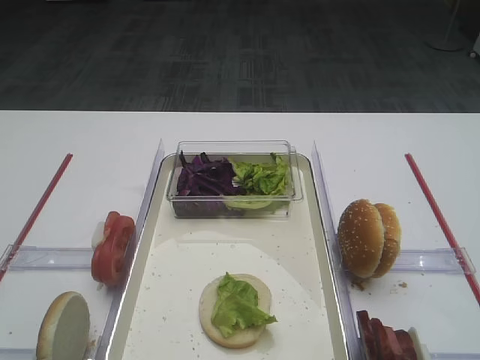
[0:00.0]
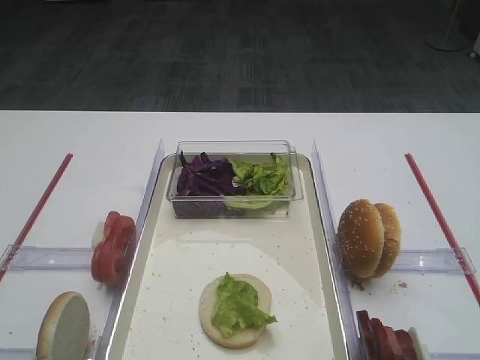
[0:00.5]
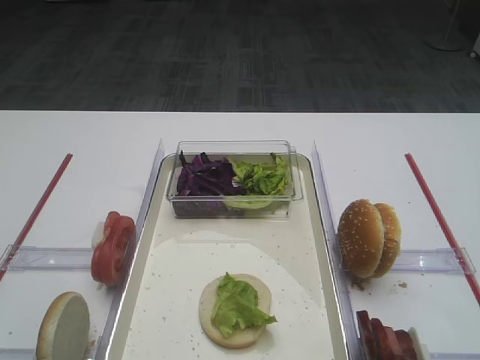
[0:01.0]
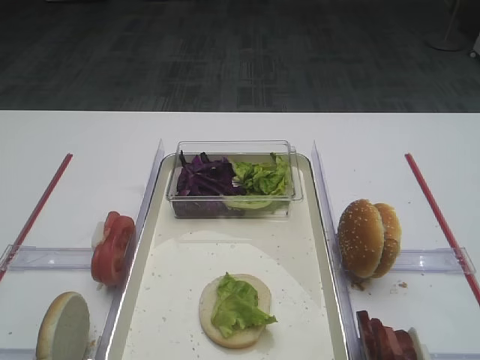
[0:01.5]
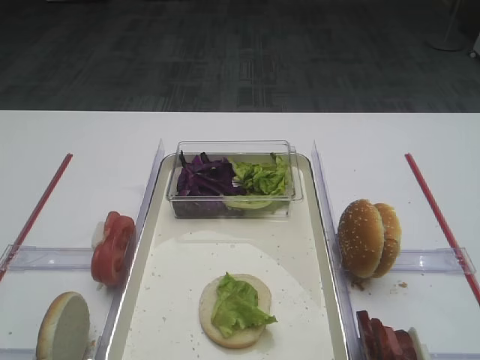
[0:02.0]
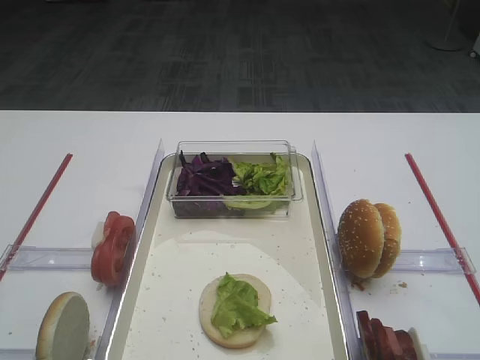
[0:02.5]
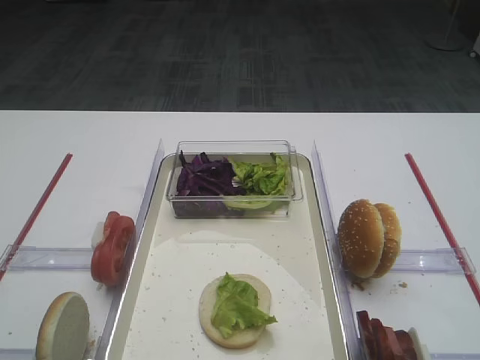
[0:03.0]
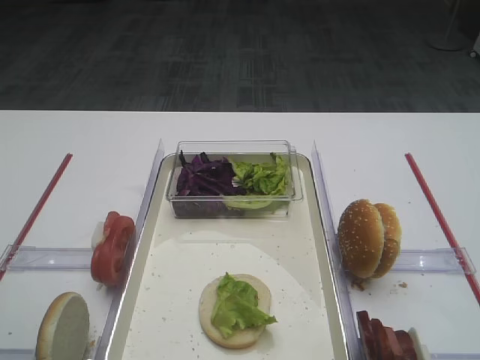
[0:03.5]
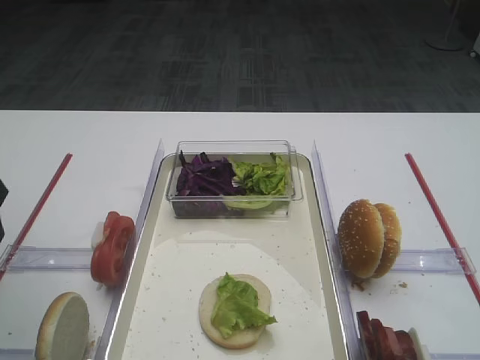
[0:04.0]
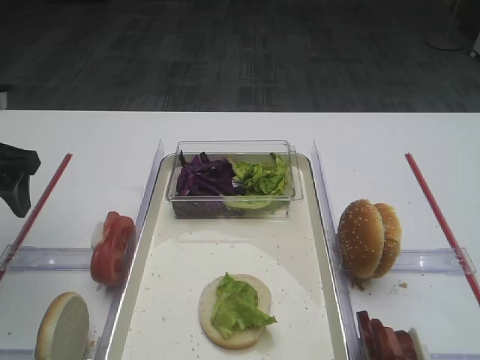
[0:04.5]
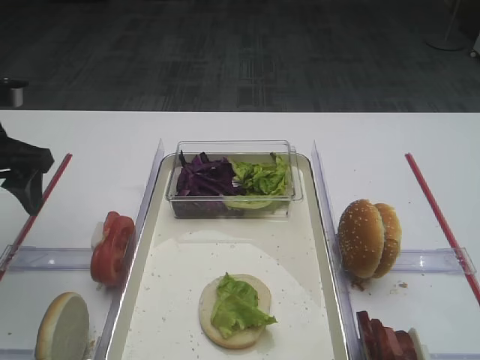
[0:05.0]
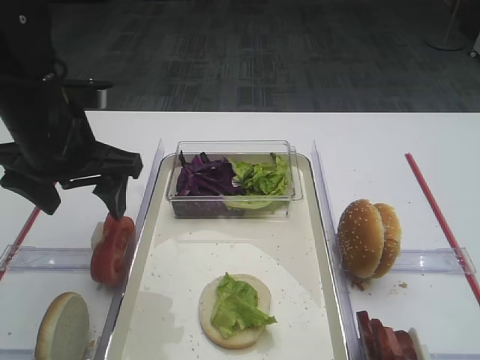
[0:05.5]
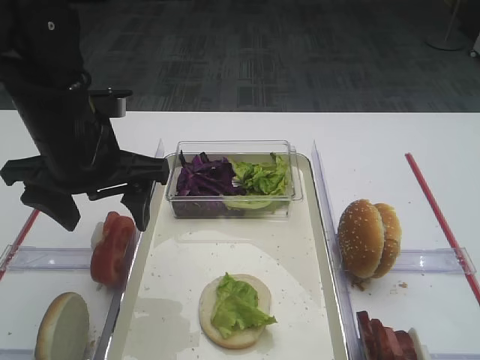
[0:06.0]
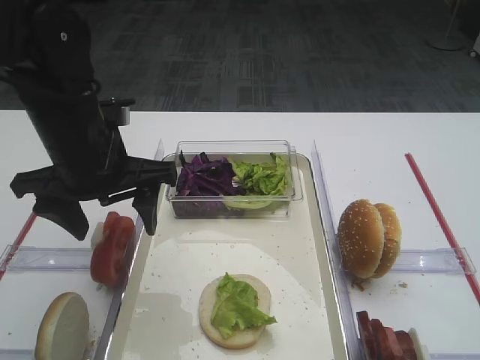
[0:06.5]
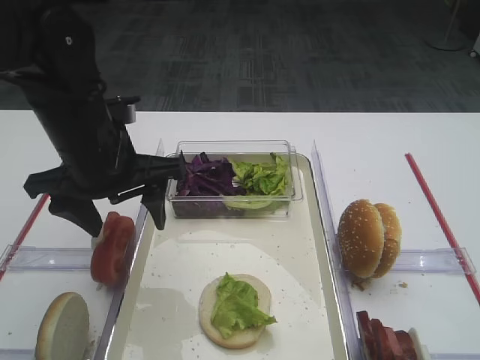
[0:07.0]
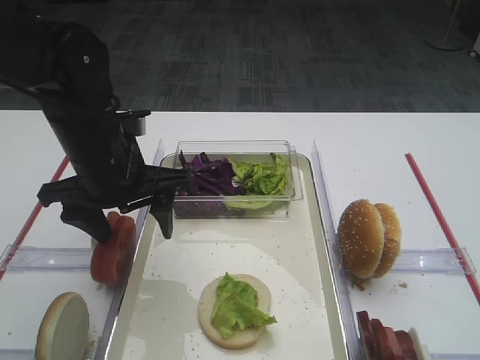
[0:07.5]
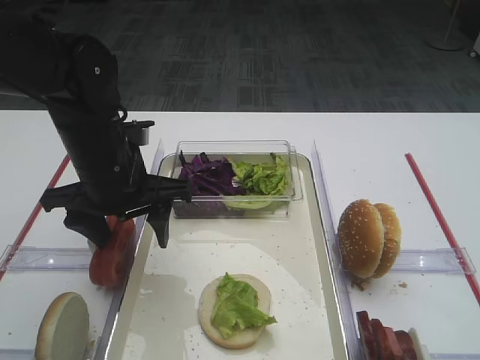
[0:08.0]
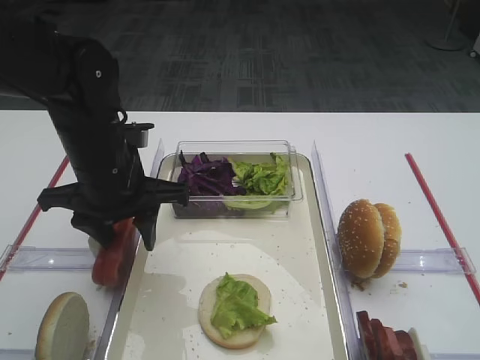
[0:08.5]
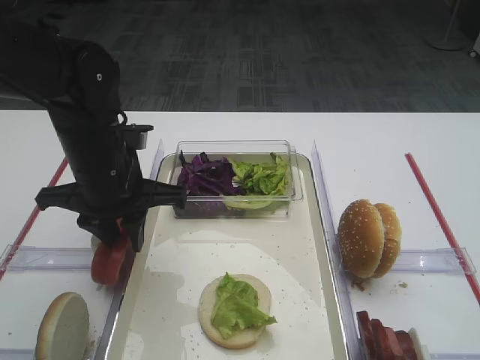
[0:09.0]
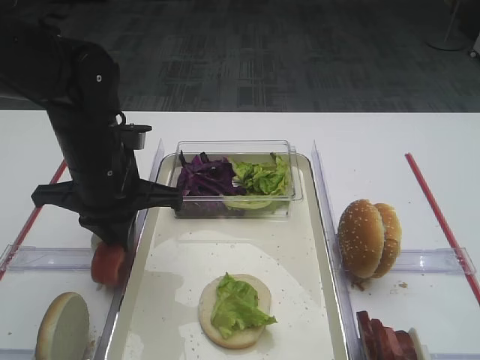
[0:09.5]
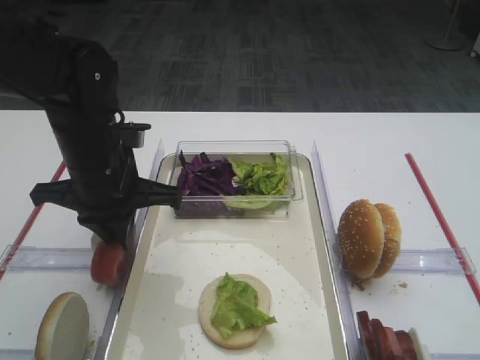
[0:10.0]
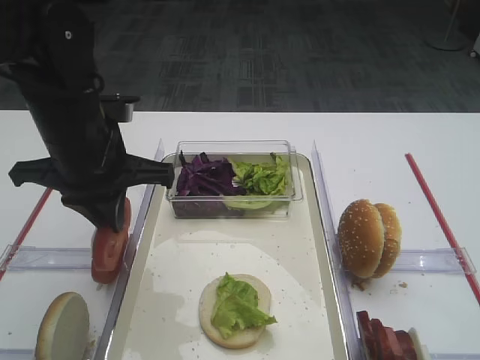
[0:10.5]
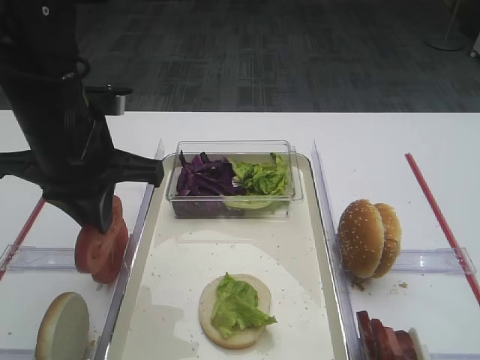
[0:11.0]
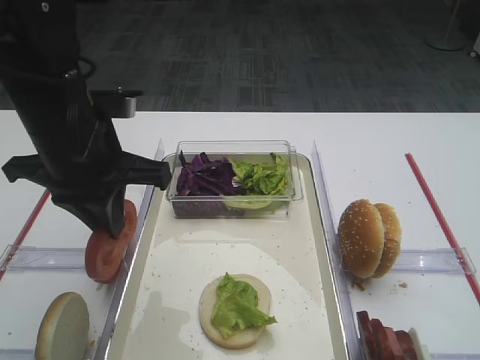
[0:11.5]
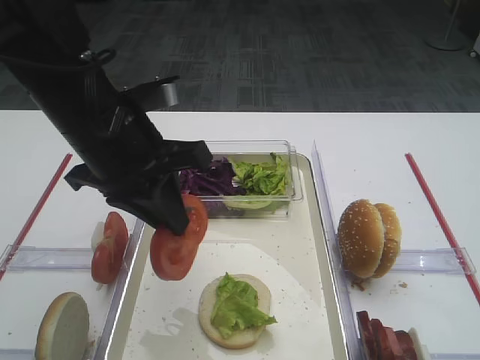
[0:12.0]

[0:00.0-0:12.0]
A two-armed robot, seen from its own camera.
Step, 0:00.0 to 0:11.0: Pick up the tomato slice with the left gripper.
0:02.0 to 0:04.0: The left gripper moves forward, roughly 25 cm.
0:04.0 to 0:06.0: The left gripper moves to the right, approximately 15 cm.
0:06.0 to 0:08.0: The left gripper moves some 5 cm.
0:08.0 to 0:10.0: The left gripper closes up.
0:10.0 to 0:12.0: The left gripper goes some 5 cm upward.

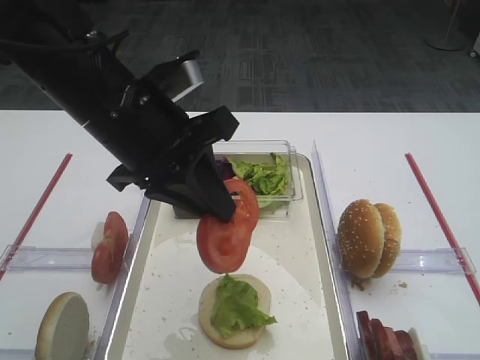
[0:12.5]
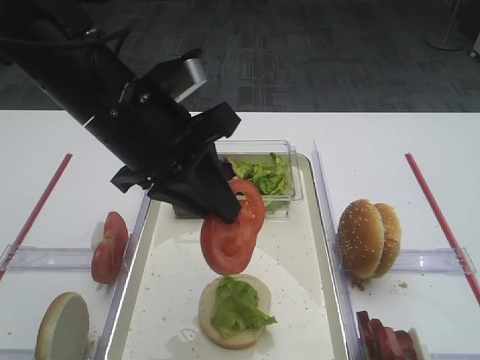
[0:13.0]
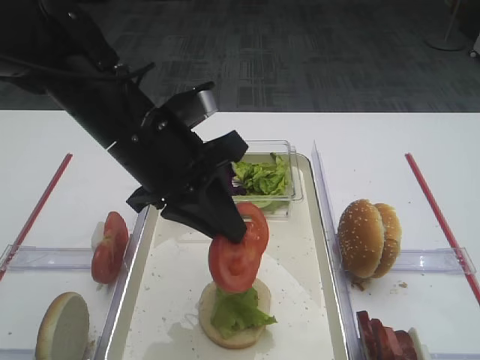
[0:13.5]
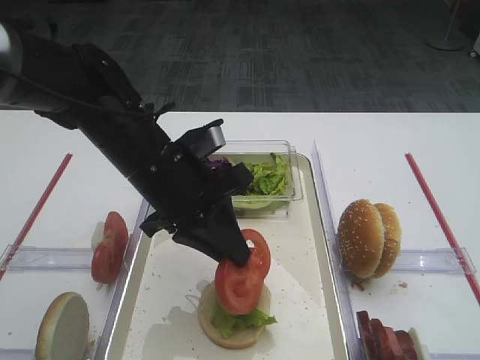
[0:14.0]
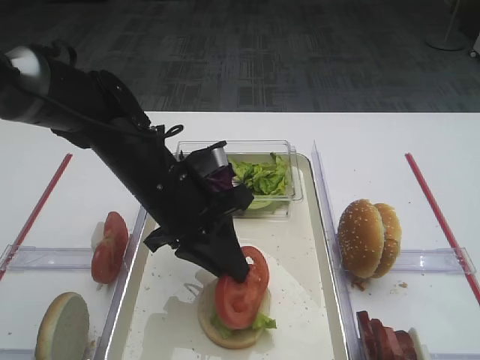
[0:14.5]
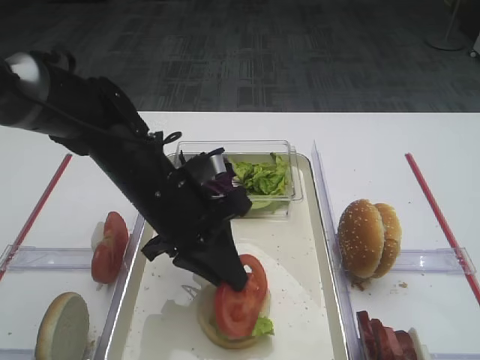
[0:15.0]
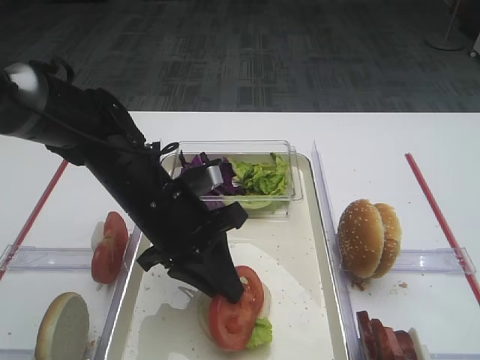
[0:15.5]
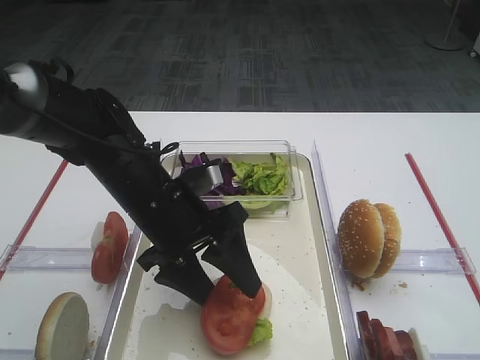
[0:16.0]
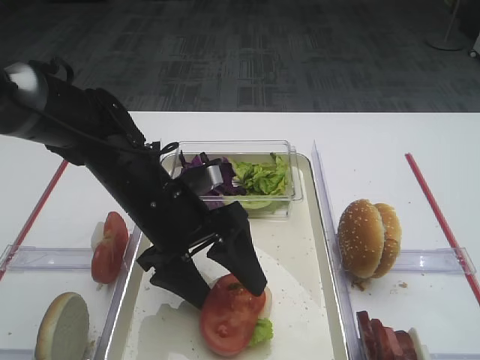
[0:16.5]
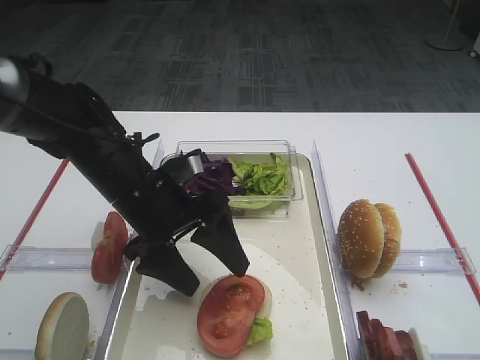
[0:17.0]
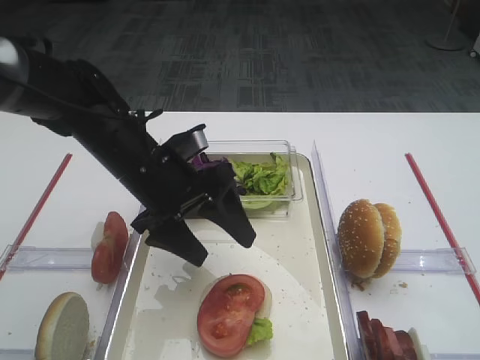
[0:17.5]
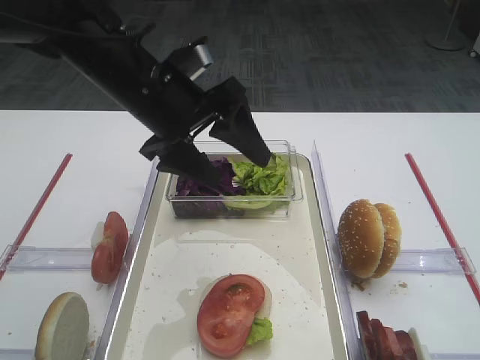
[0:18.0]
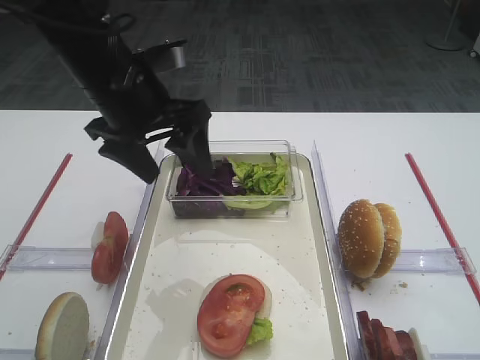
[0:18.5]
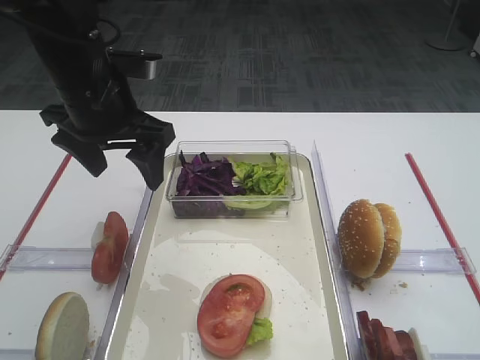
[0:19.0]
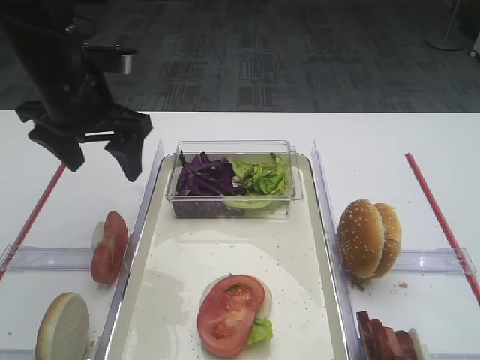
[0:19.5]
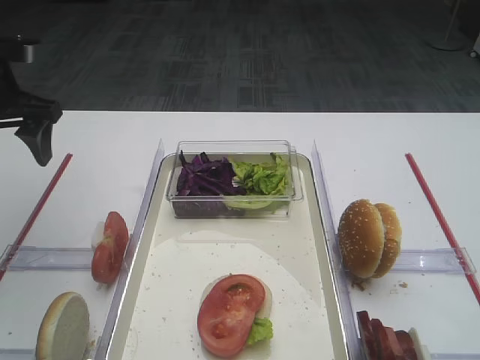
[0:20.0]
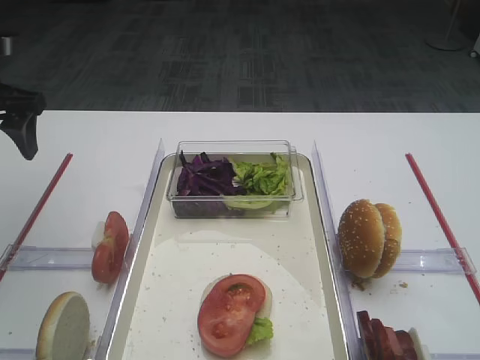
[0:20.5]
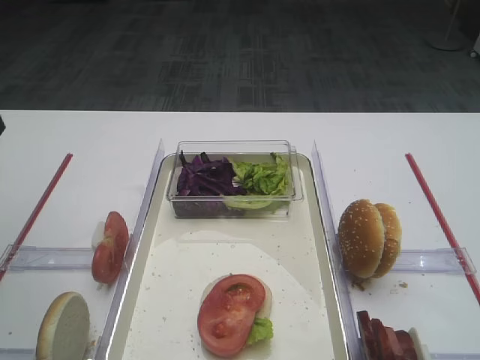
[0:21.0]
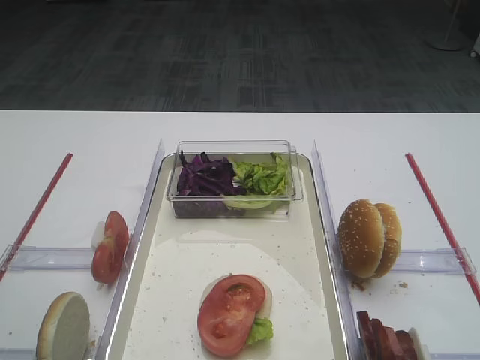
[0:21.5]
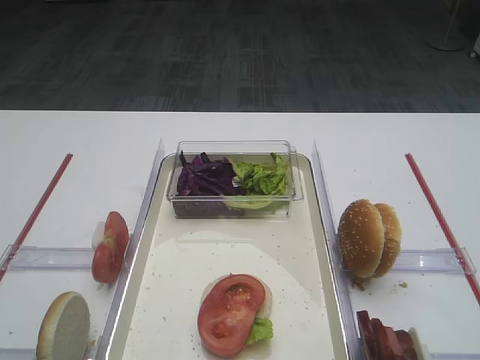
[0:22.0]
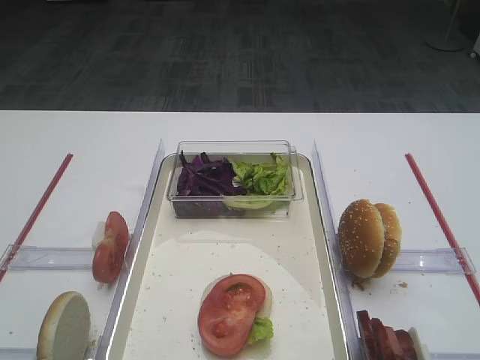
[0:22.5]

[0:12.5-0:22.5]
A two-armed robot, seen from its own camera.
Step, 0:12.5 to 0:17.5: Place the tomato slice on the lettuce leaf with the left gripper.
0:12.5 to 0:14.5: The left gripper is displaced downward by about 10 cm.
0:14.5 to 0:16.5: The left gripper opens.
0:16.5 to 0:18.5: The left gripper goes about 10 cm upward and forward.
0:18.5 to 0:20.5: The left gripper moves to the left, some 20 cm.
0:20.5 to 0:22.5: The left gripper is displaced backward by approximately 30 cm.

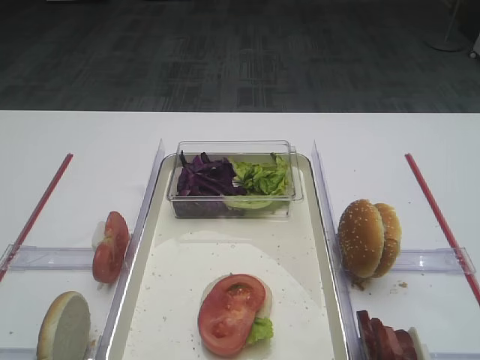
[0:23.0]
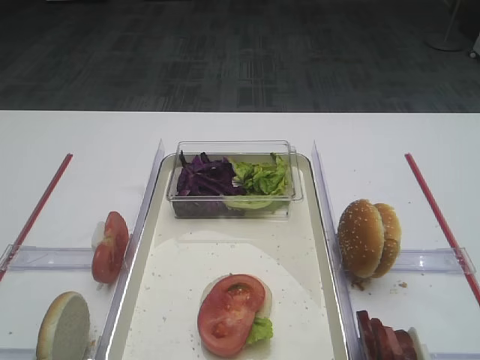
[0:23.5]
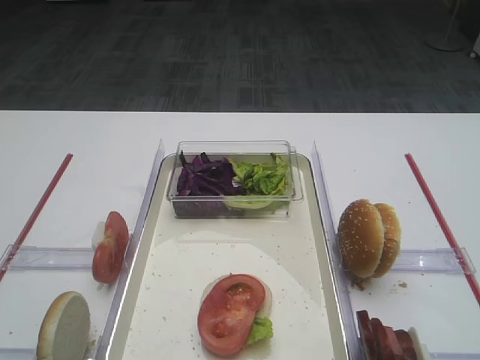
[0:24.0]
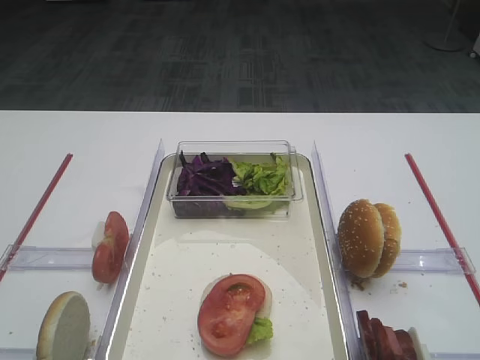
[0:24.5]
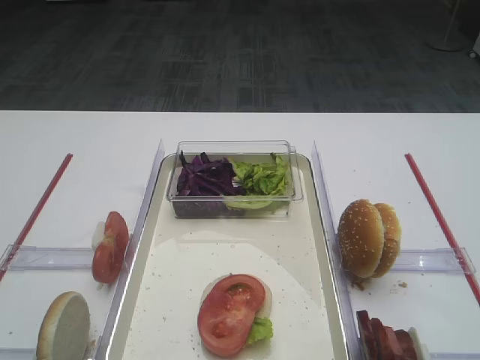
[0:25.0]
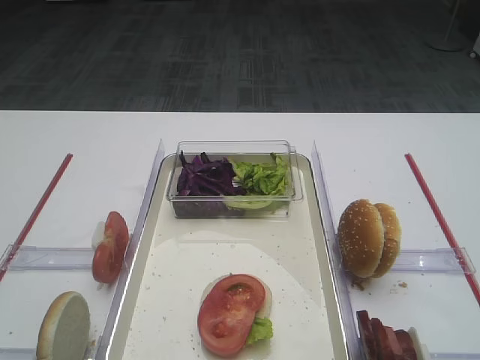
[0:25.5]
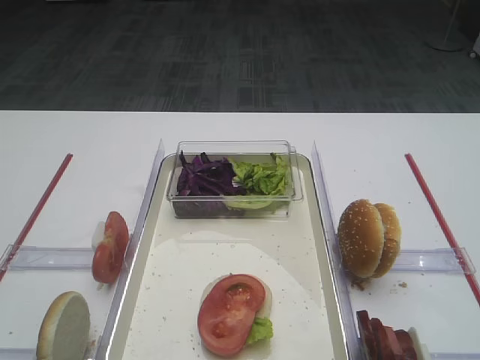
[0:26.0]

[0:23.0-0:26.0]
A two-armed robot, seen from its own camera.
0:23.0 to 0:26.0: Both grippers stay put.

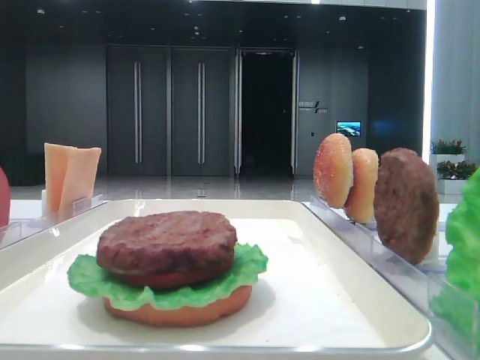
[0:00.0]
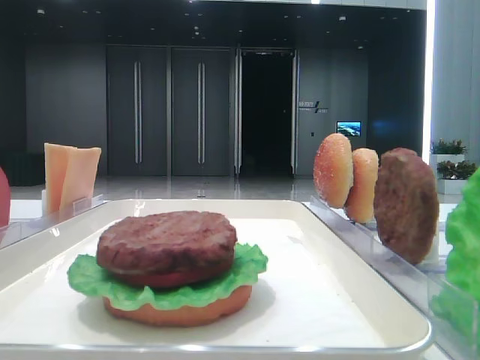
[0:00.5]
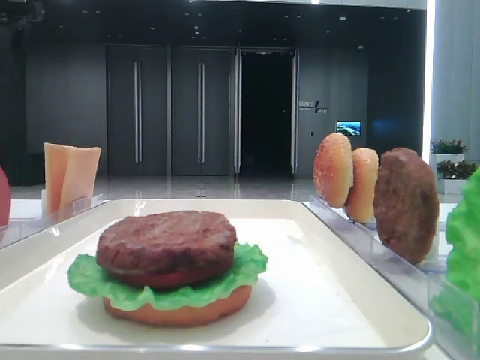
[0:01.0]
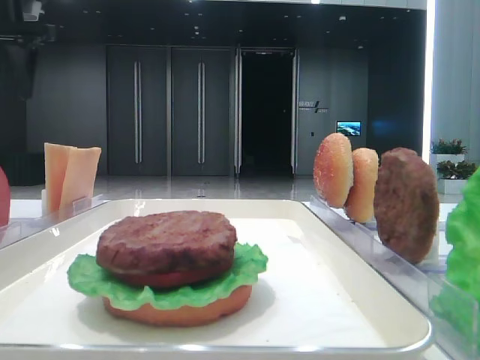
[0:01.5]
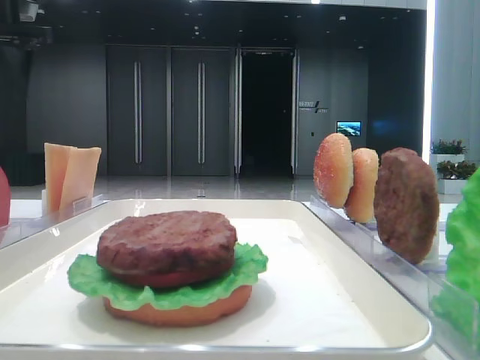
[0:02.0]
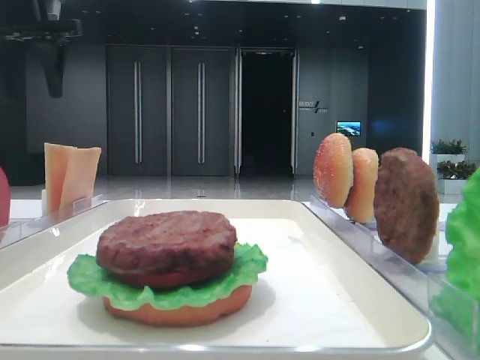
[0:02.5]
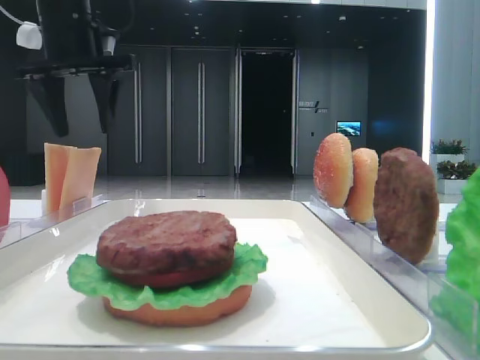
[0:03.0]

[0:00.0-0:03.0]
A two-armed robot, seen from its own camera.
0:01.5 to 0:03.0: The left gripper moves to the right, some 10 cm.
